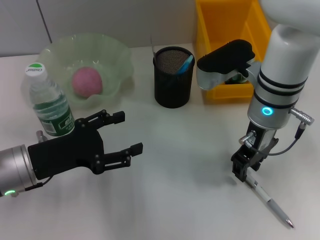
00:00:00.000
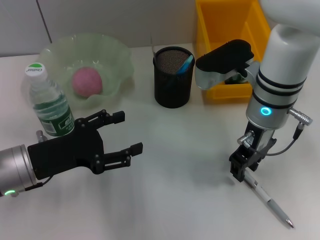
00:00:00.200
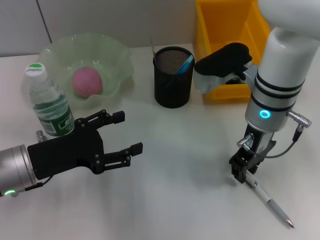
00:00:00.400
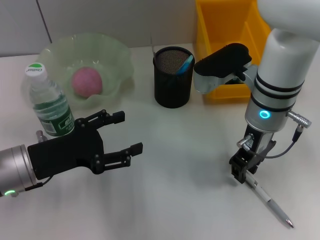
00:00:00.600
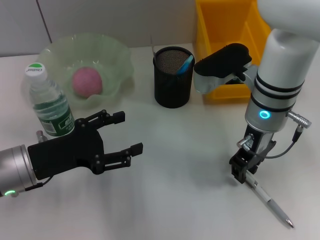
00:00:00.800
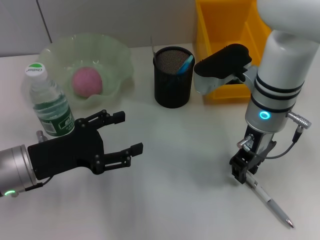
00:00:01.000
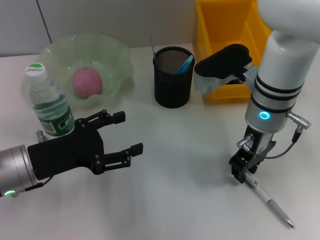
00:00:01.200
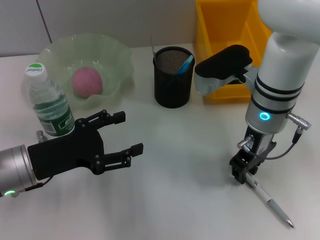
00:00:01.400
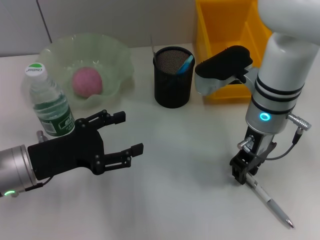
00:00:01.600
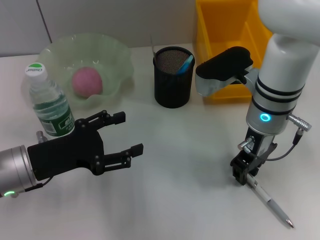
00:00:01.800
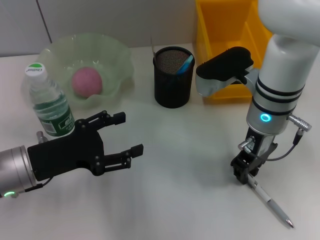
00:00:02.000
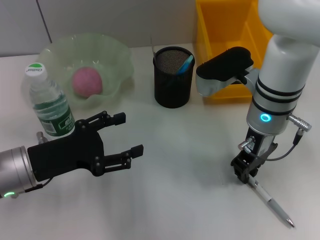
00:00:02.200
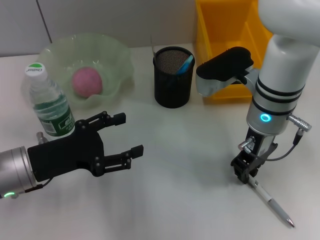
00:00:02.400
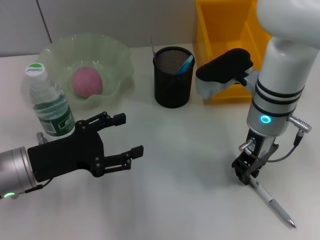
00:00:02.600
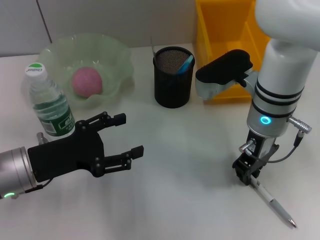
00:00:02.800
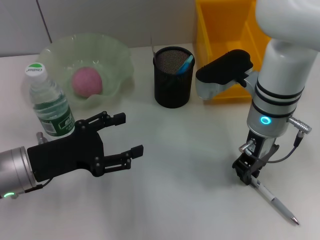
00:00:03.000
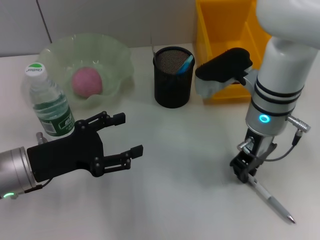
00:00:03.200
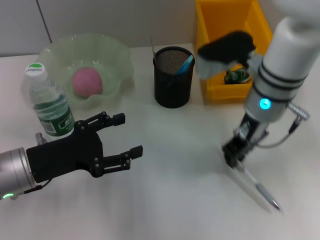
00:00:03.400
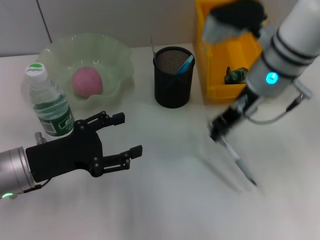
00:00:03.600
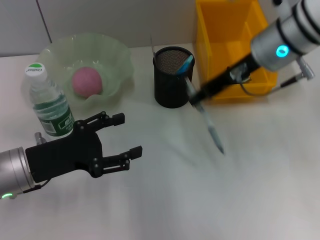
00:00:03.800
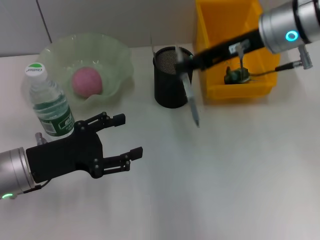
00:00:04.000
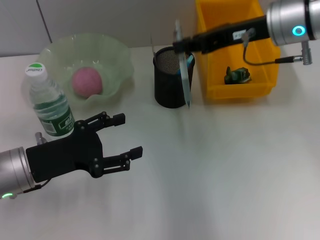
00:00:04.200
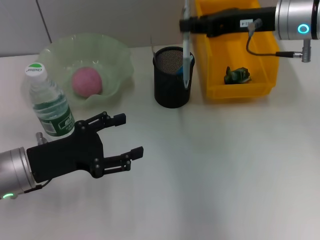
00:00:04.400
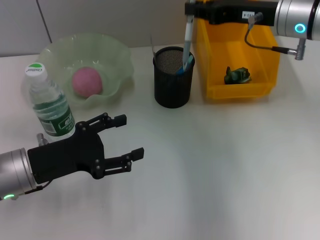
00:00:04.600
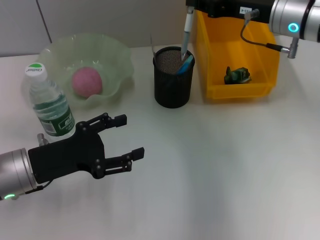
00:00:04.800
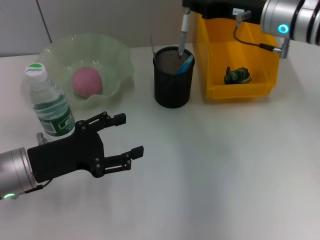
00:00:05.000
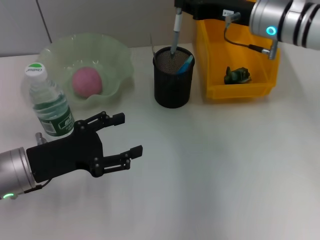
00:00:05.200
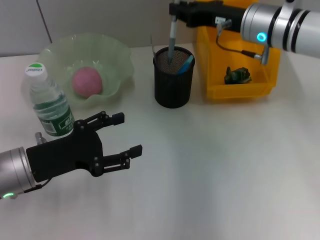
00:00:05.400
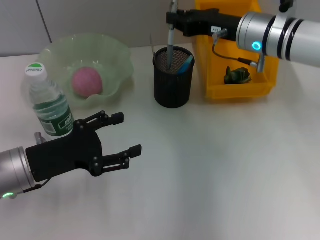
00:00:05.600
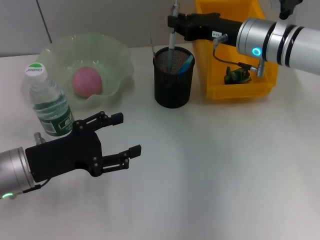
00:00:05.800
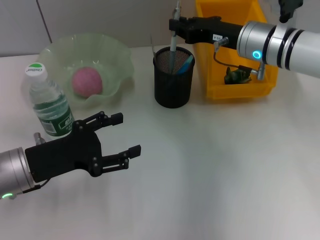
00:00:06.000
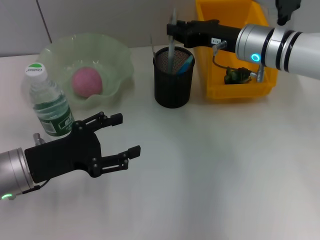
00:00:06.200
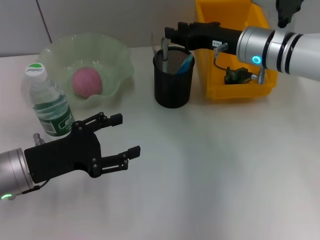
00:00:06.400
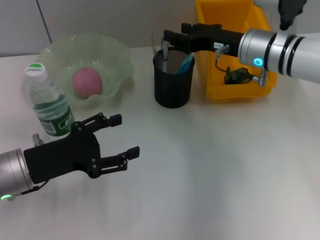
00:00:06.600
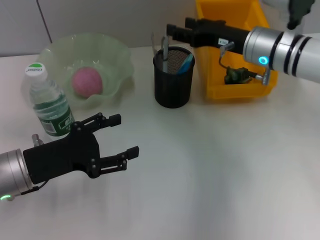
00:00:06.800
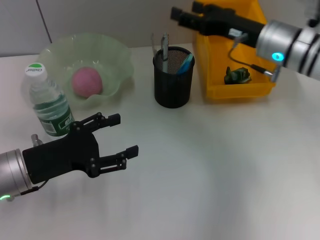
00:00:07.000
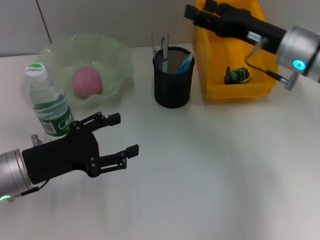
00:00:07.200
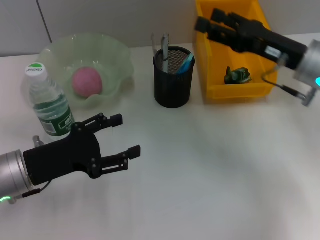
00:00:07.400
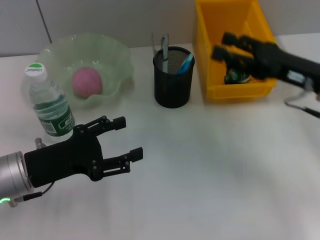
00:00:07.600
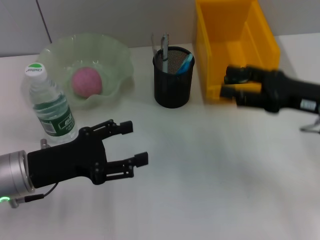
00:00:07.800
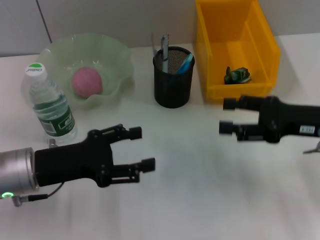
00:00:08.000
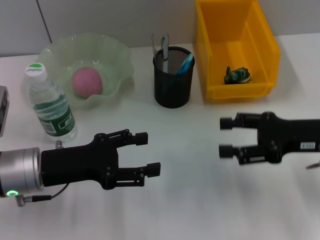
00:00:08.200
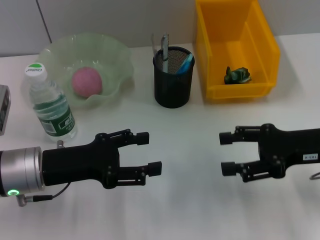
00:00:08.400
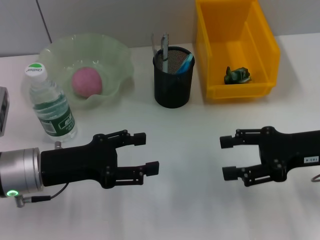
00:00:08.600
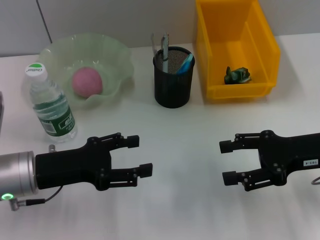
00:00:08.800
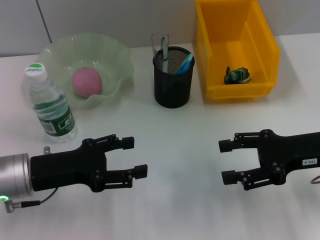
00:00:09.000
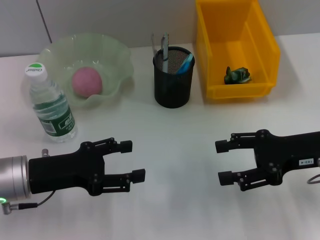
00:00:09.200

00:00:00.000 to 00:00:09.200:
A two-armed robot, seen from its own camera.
Step, 00:00:00.000 to 00:00:02.800: Grab the gray spring-action pen with the right hand.
Step, 00:00:03.000 to 00:00:06.400: Place the gray spring-action pen into the pen holder with the right hand.
00:00:00.000 to 00:00:03.000: Neither gripper changes place.
00:00:03.000 to 00:00:04.600: The right gripper heads to the right, upward and forward, covering some 10 cm.
00:00:04.600 to 00:00:06.200: The right gripper heads downward, covering some 5 cm.
00:00:06.200 to 00:00:07.600: The right gripper is displaced backward and to the right by roughly 15 cm, and opens its fingers.
